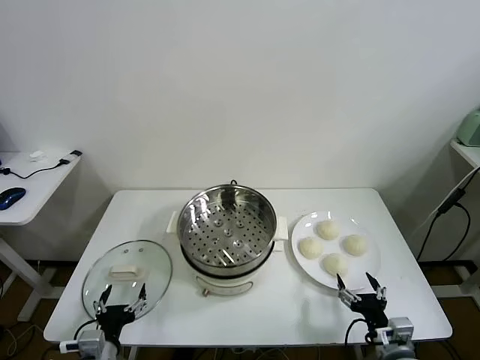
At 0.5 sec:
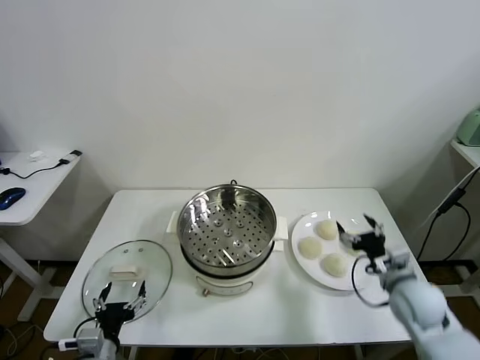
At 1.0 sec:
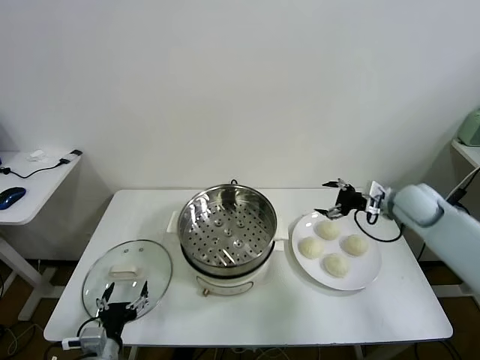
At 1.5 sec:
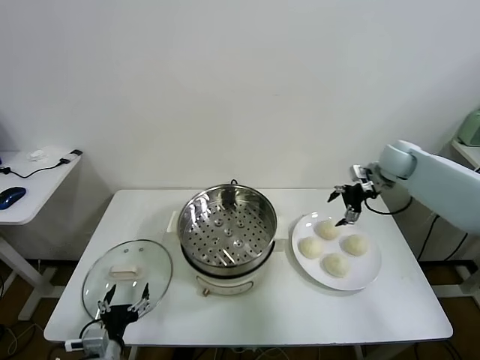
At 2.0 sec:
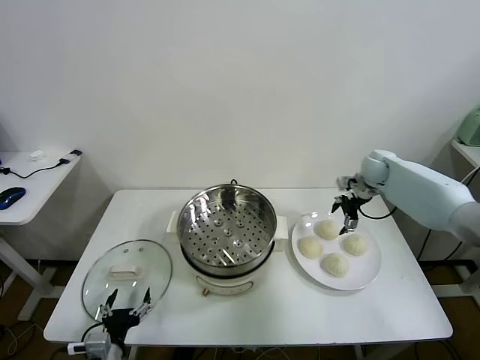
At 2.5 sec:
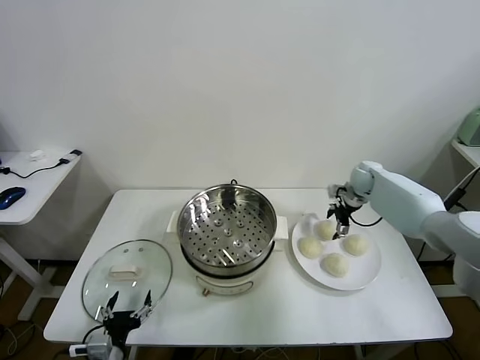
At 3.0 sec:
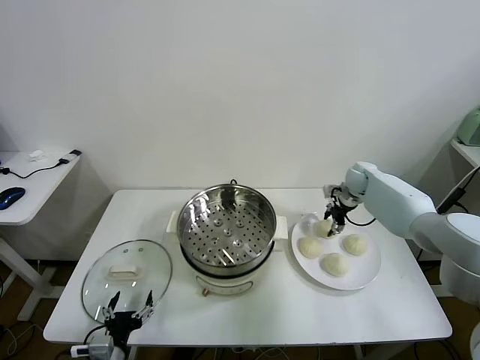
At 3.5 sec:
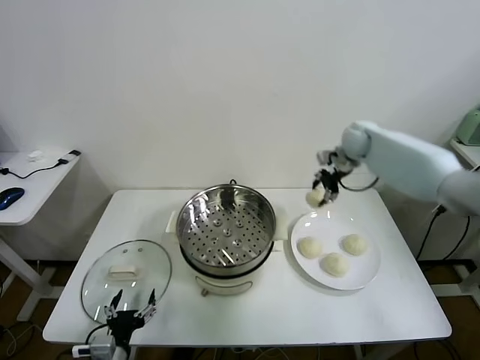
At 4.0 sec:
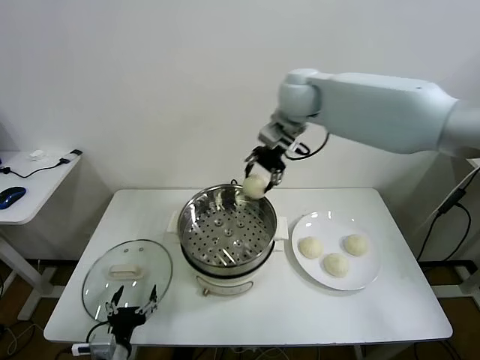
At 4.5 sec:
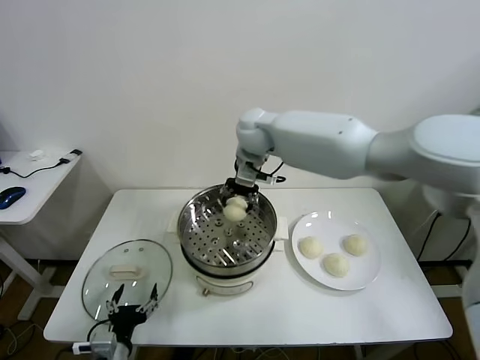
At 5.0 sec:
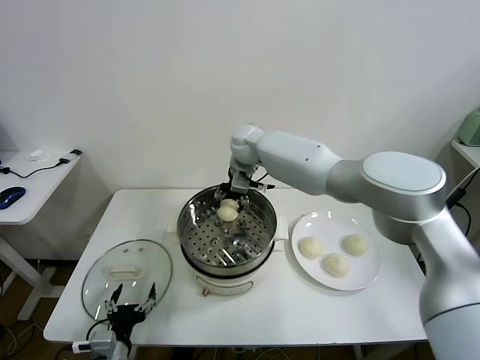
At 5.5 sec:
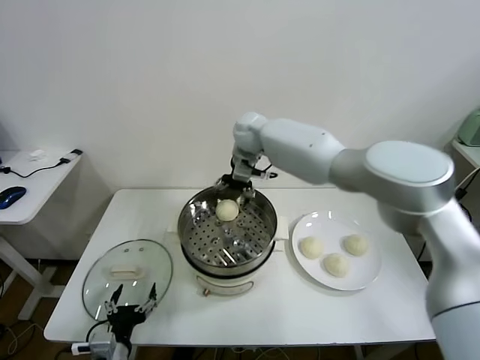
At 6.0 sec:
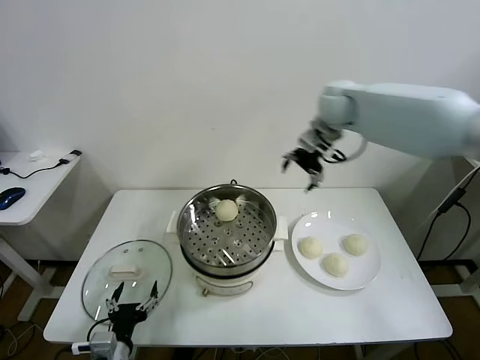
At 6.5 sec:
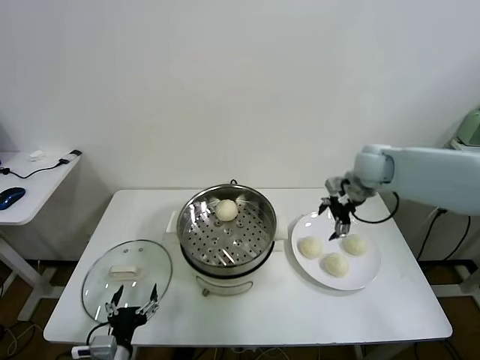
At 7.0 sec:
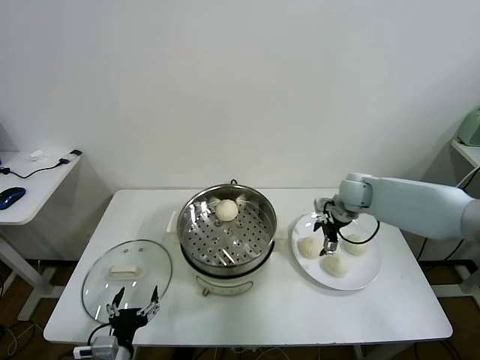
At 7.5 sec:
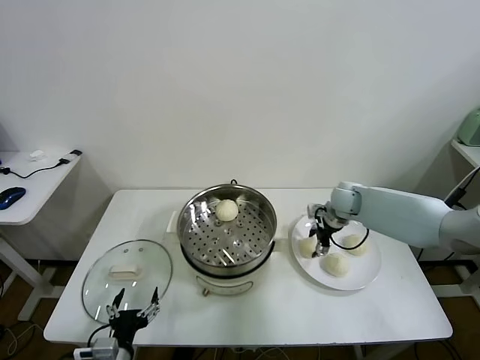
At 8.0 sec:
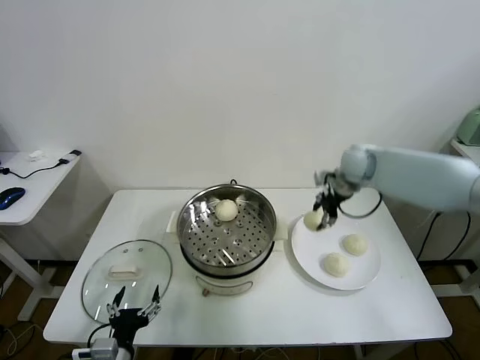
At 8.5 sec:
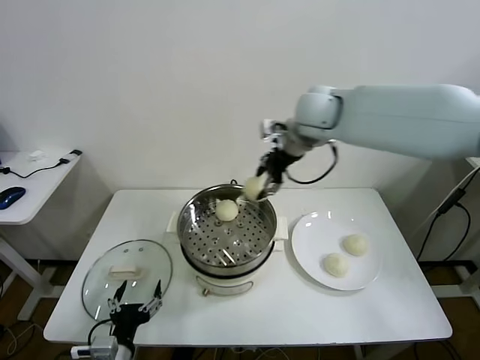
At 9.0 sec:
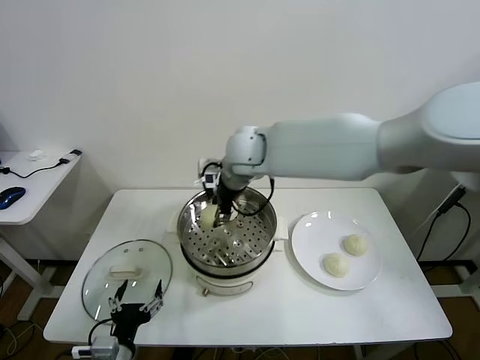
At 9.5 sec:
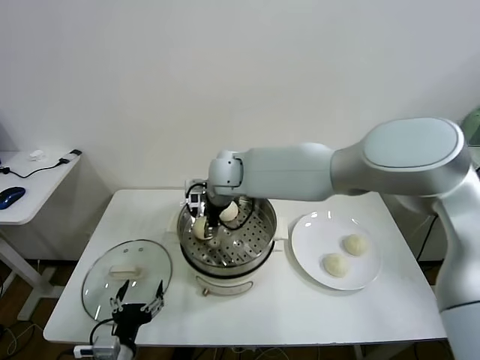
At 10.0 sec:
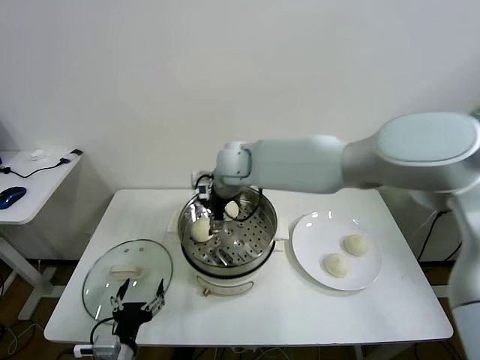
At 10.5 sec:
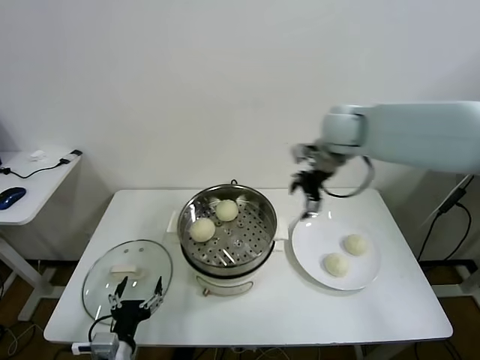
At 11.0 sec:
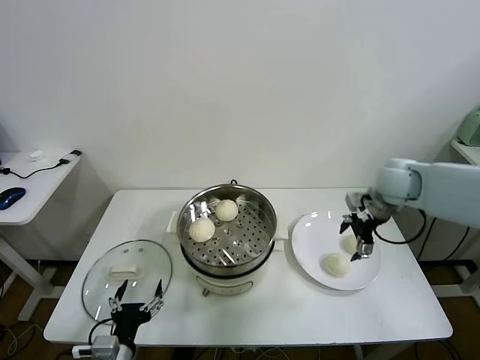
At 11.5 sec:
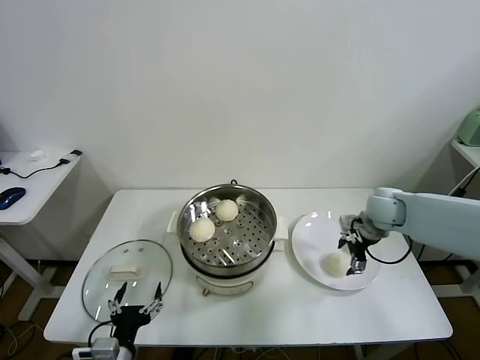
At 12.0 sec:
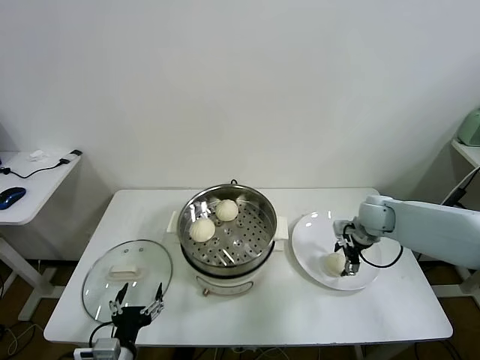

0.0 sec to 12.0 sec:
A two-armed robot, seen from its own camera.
Task of the whole recording: take steamed baozi put them in steamer.
Step, 0.0 sec to 2.5 sec: Grasp the baozi in the plate with right gripper.
Step, 3.0 sec to 5.0 sec: Place the baozi on the steamer with right gripper.
Step, 5.5 sec to 7.5 sec: Grasp the baozi in the plate with right gripper.
Step, 8.0 sec to 9.5 sec: Place the baozi on the steamer with right gripper.
2.0 sec to 4.0 sec: The right gripper heads to the left and upward, covering some 35 cm, and closes.
4.0 sec to 6.0 sec: The right gripper travels to the right by approximately 15 cm, and opens up.
6.0 sec to 8.0 sec: The right gripper is displaced downward by approximately 10 cm, and closes up.
8.0 sec to 10.0 sec: The right gripper is displaced to the left by roughly 30 cm, and opens up.
10.0 sec to 12.0 sec: The right gripper heads to the right and downward, covering roughly 35 cm.

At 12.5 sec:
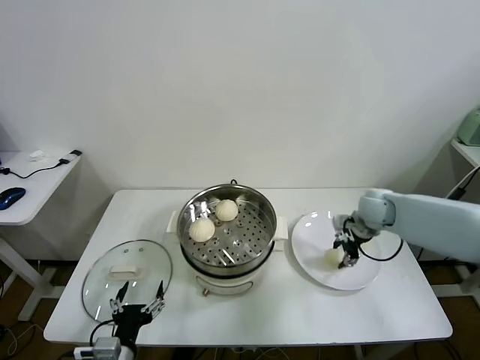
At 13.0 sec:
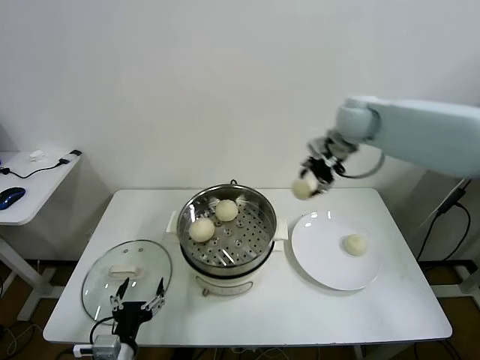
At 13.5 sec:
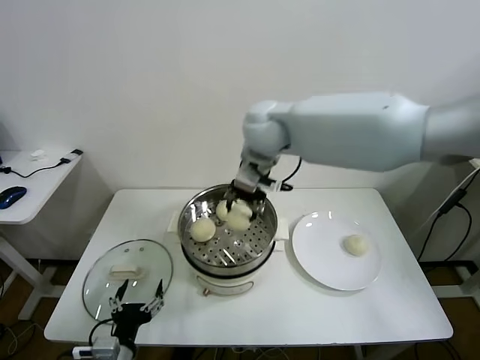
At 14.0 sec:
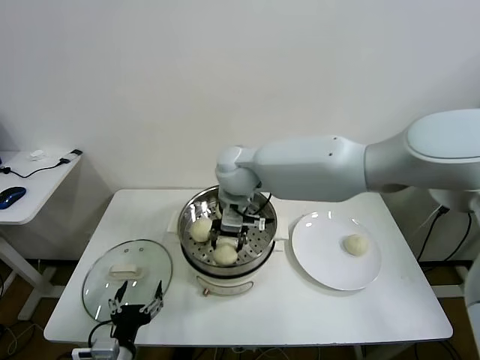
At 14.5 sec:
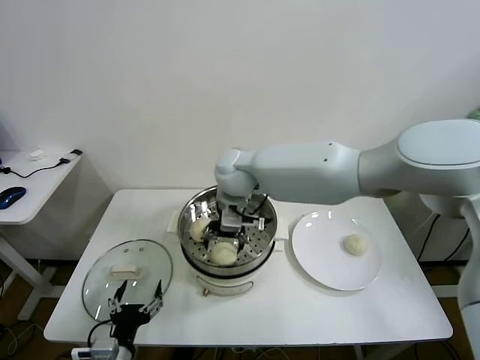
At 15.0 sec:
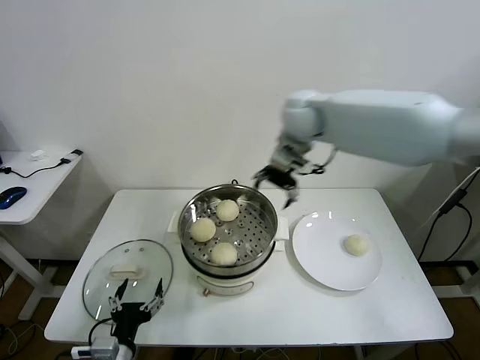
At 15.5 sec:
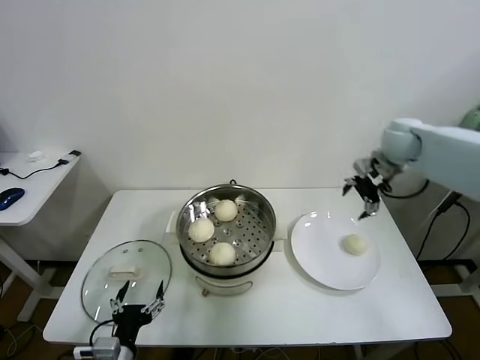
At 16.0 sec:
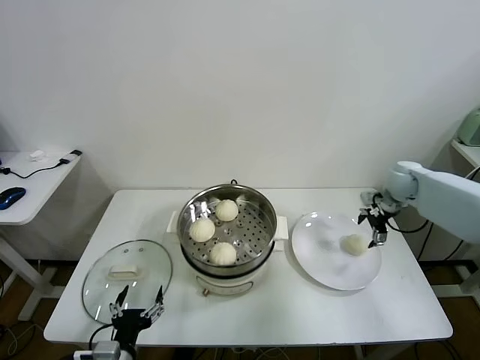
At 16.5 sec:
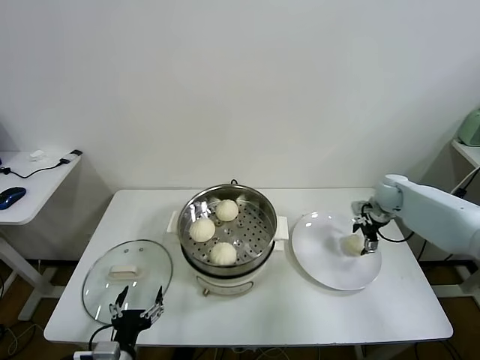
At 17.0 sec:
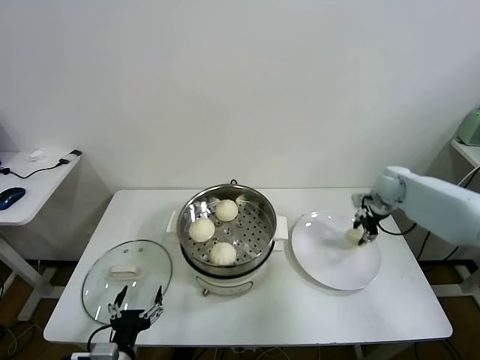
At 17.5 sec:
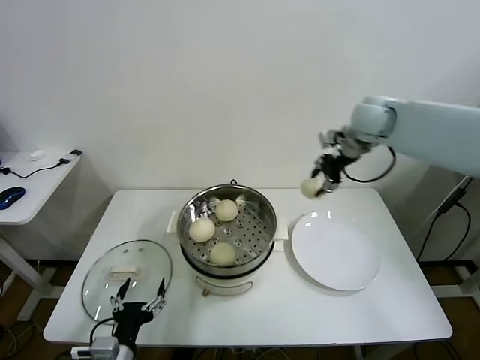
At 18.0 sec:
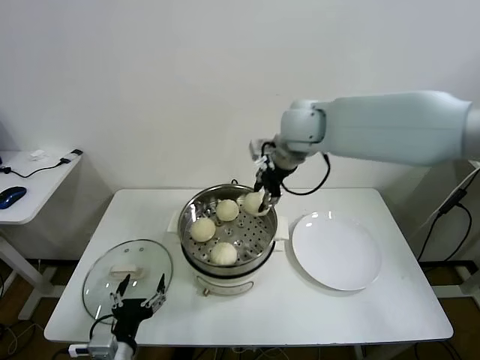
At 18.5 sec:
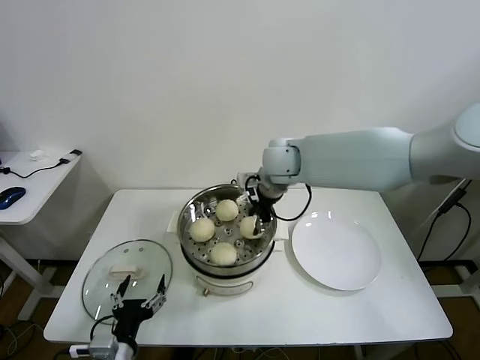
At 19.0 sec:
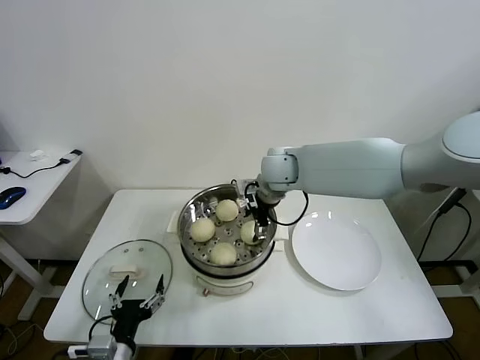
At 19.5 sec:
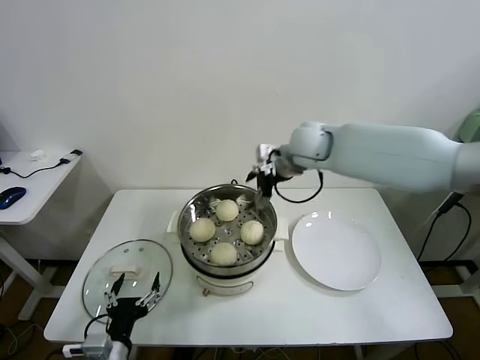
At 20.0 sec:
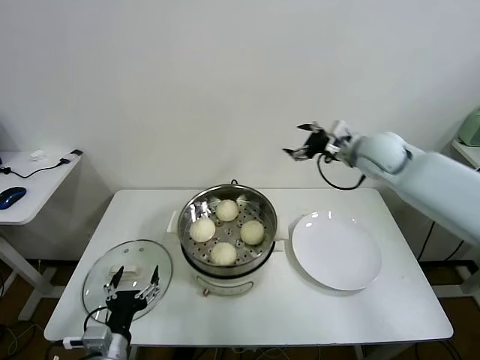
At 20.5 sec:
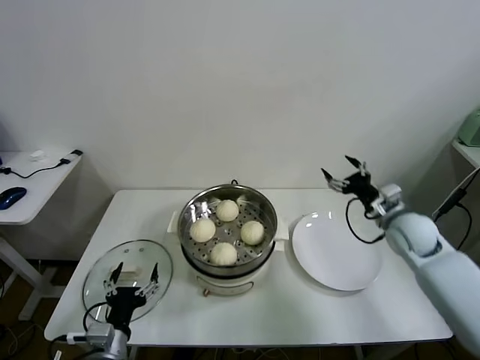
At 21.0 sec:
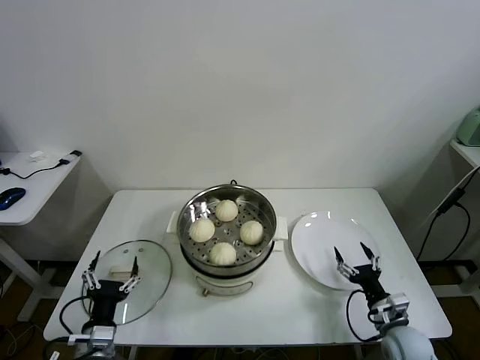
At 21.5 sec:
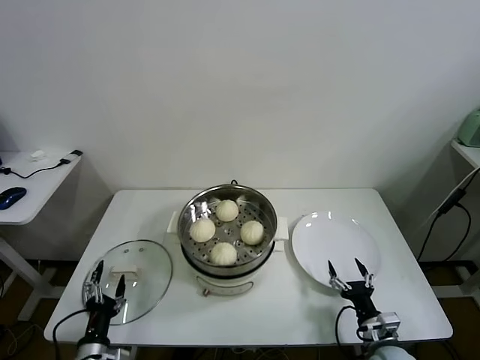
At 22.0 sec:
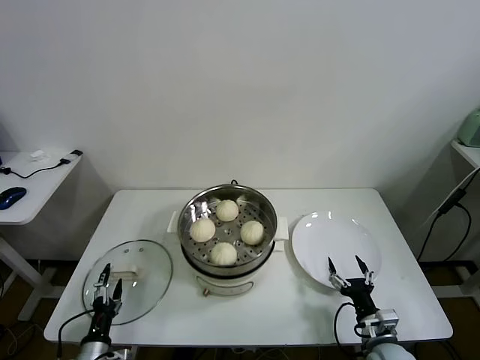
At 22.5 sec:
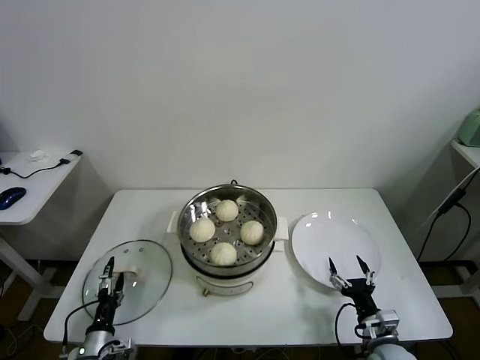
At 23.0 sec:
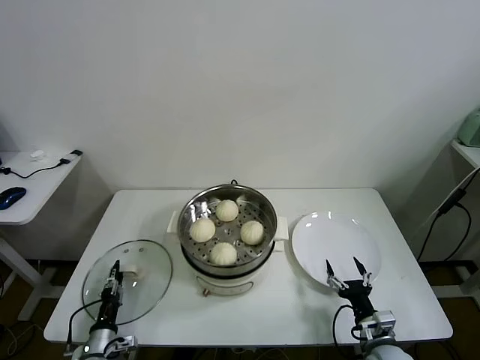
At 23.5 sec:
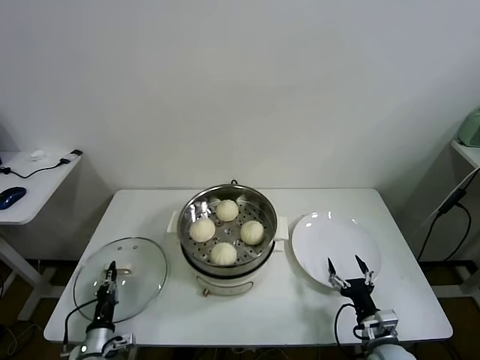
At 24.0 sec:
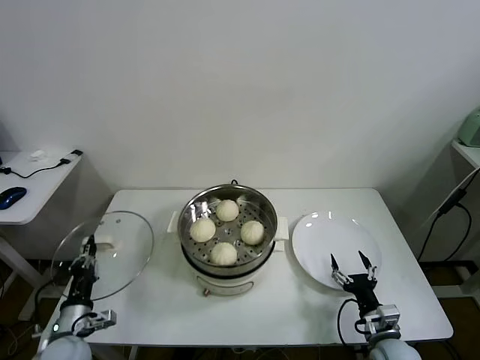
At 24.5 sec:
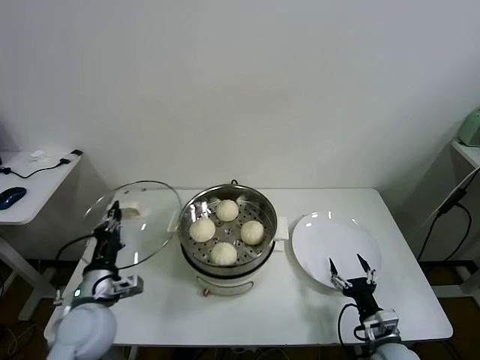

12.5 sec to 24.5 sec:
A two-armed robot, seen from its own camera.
Task of the whole recording: take steamed baozi put them in steamer.
Step, 12.5 sec to 14.5 sec: Place the baozi on the steamer with right gripper.
Step, 15.0 sec to 16.5 sec: Grasp the baozi in the plate with right gripper.
Step, 17.0 sec to 19.0 sec: Place the baozi on the steamer with right gripper.
Step, 19.5 sec to 23.0 sec: Grasp the pot lid with left gripper.
12.5 sec to 14.5 sec: The right gripper moves to the left, about 35 cm, and opens.
14.5 sec to 16.5 sec: The right gripper goes about 40 cm to the right.
16.5 sec to 18.5 sec: The right gripper travels to the left and upward by about 35 cm, and closes up.
18.5 sec to 20.5 sec: The right gripper moves to the right and downward, some 30 cm, and opens its fingers.
20.5 sec to 22.5 sec: The left gripper moves downward and to the left, about 15 cm. Meanwhile the right gripper is displaced backward and downward by about 30 cm.
22.5 sec to 24.5 sec: The left gripper moves upward, some 20 cm, and closes its fingers.

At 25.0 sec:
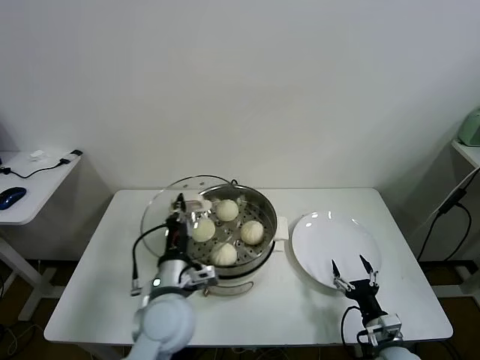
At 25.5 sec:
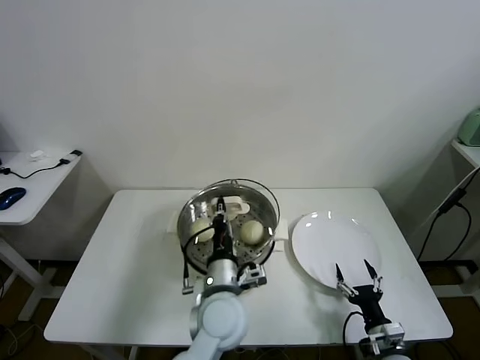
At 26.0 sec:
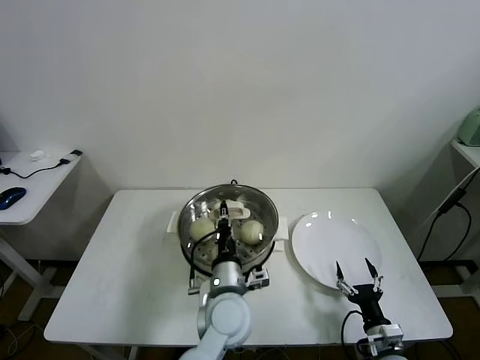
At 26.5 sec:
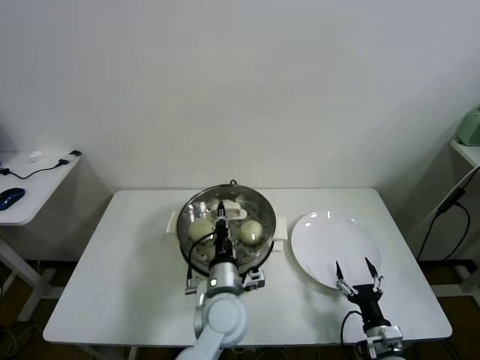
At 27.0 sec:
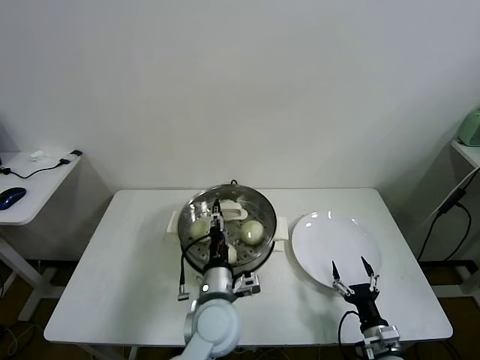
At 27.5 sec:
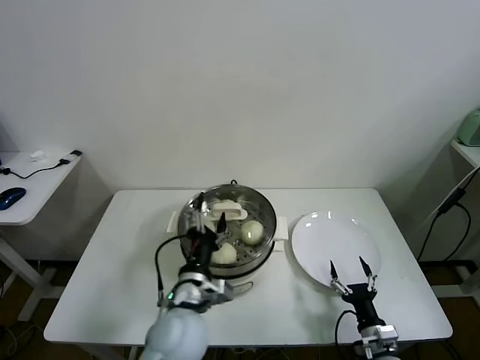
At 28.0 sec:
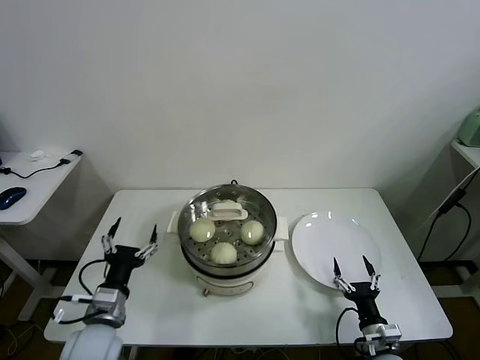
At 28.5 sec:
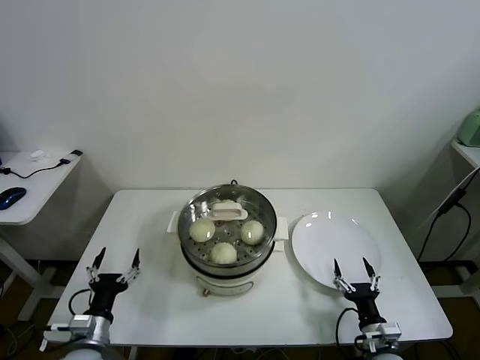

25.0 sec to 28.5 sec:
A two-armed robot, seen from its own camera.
Task of the whole recording: take steamed baozi put them in steamer.
25.0 sec to 27.0 sec: The left gripper goes some 10 cm to the right, and opens up.
27.0 sec to 28.5 sec: The left gripper goes some 30 cm to the left, and opens up.
